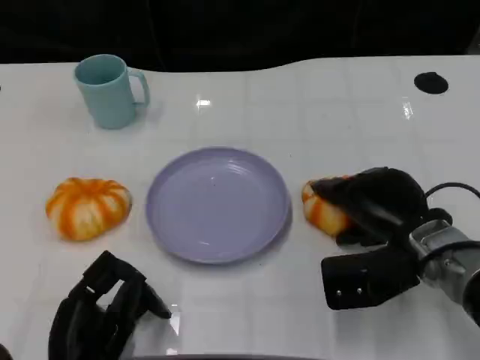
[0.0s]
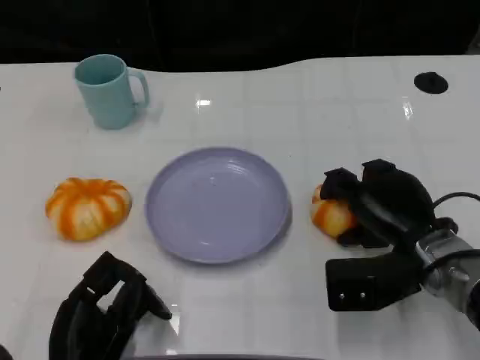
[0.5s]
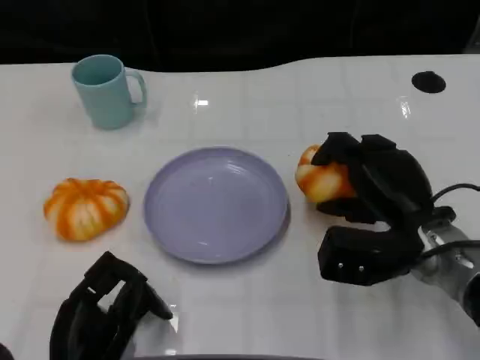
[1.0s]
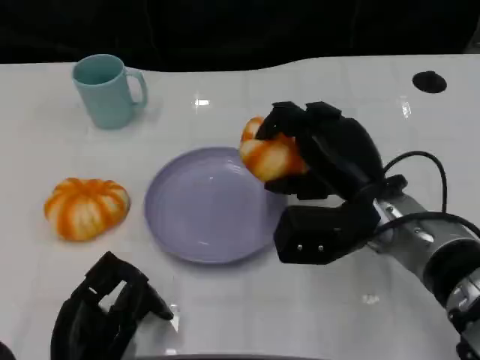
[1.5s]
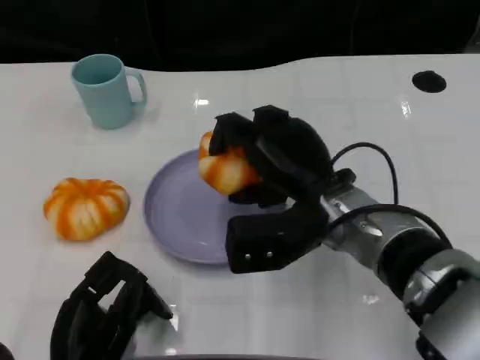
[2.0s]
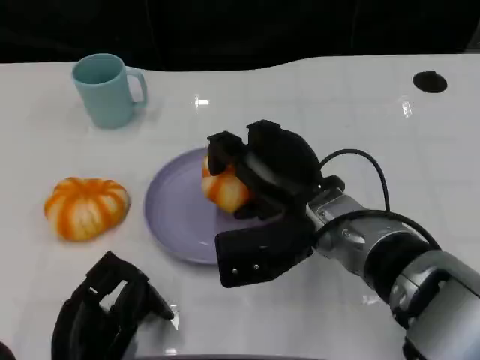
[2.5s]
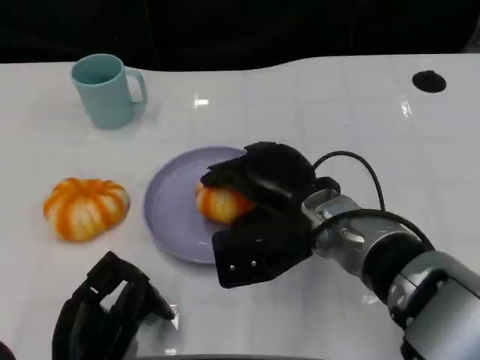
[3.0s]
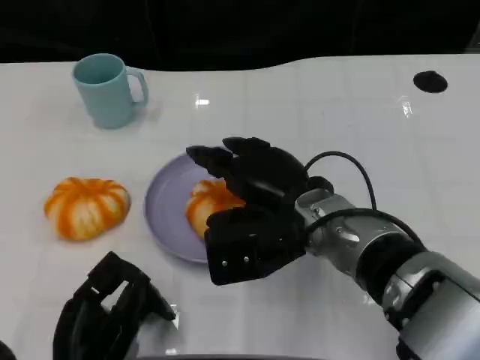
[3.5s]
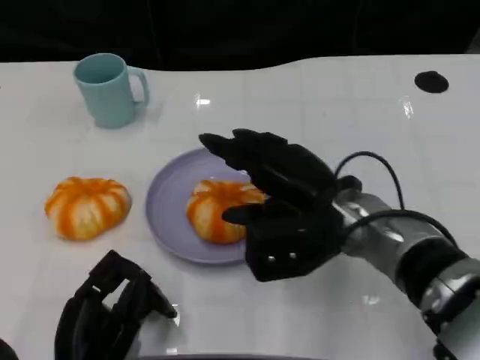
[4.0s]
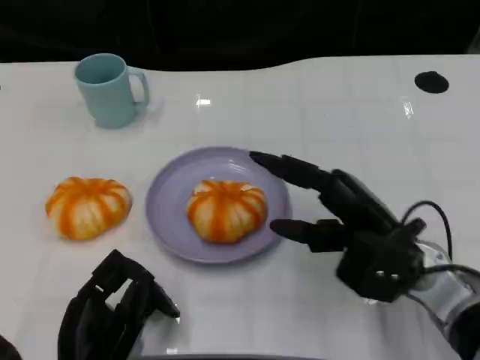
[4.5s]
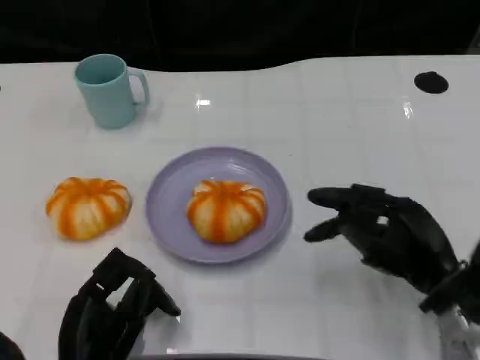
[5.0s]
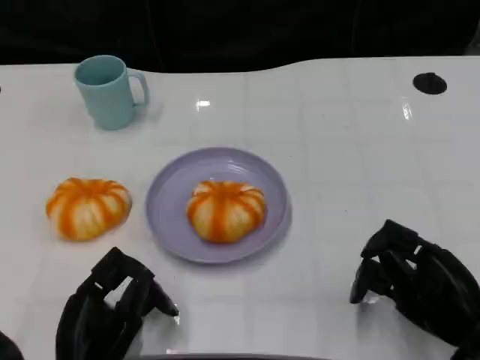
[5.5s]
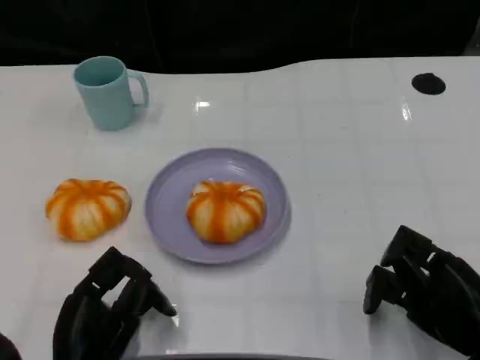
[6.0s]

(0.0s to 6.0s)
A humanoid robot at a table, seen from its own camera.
Task of the whole recording: Grasp the bread from the table and place it into the plate.
0.0s - 2.0s: The right hand shifts some 10 cm to the left.
2.0s - 4.0s: The hands make only small movements.
4.0s - 6.0s: The right hand shifts roughly 20 cm to the right, backward and downward.

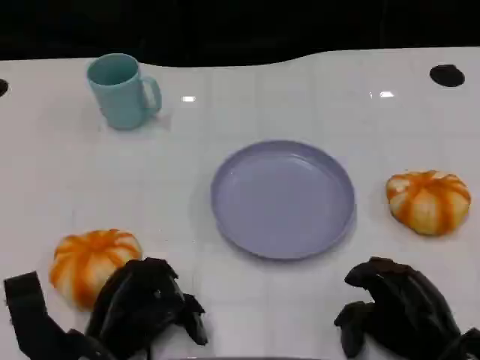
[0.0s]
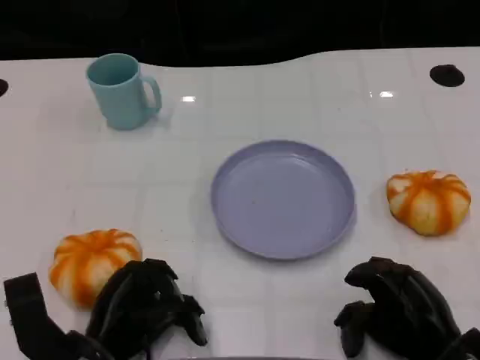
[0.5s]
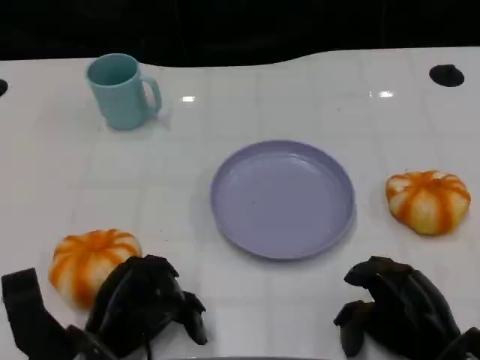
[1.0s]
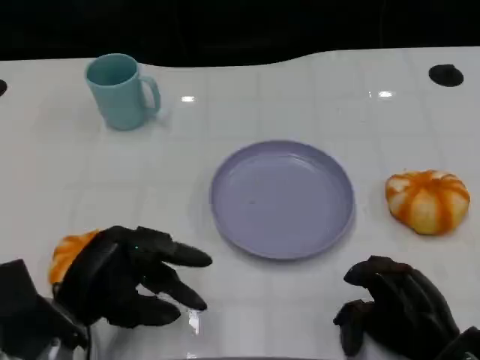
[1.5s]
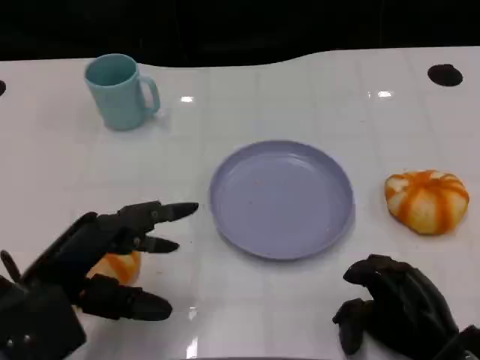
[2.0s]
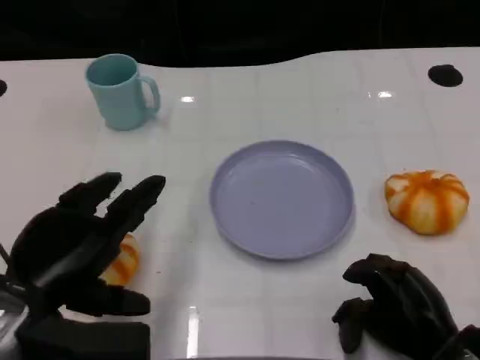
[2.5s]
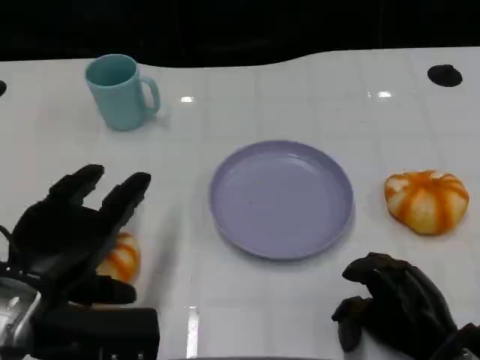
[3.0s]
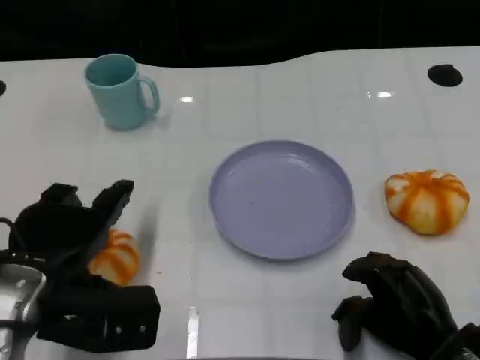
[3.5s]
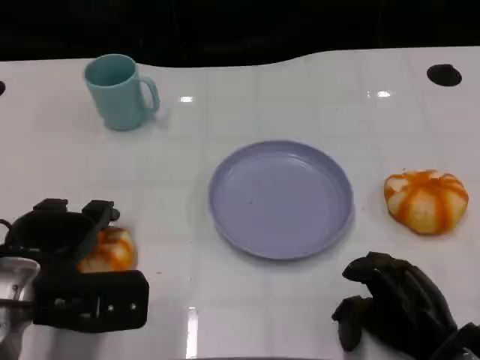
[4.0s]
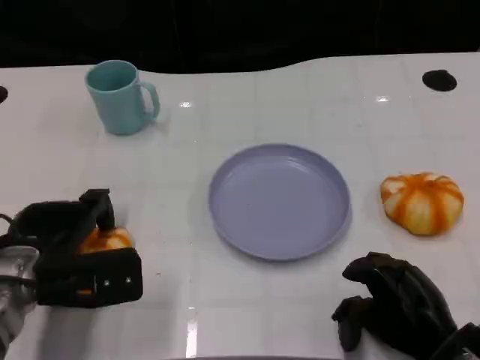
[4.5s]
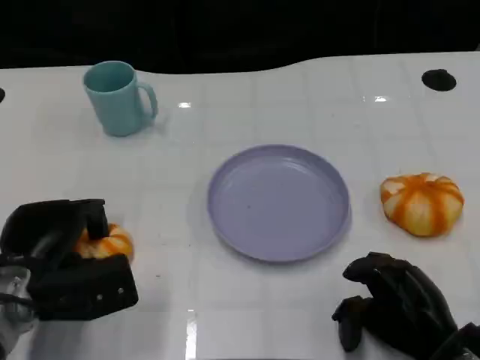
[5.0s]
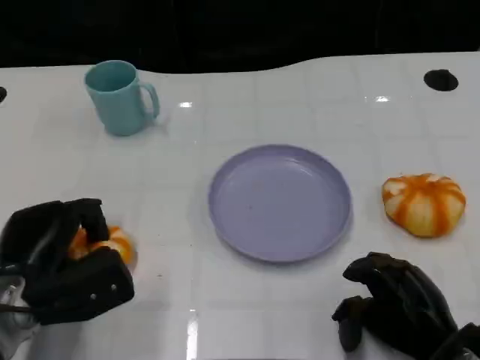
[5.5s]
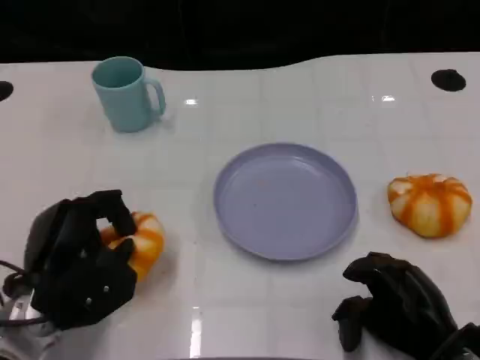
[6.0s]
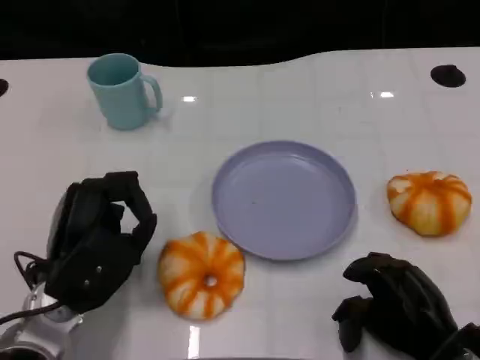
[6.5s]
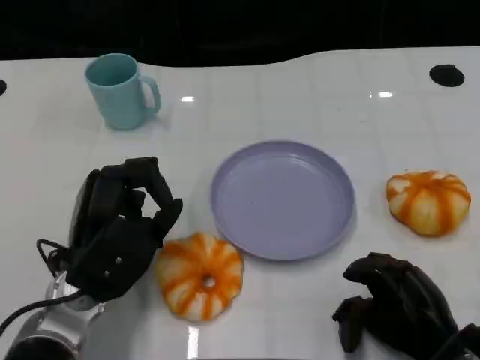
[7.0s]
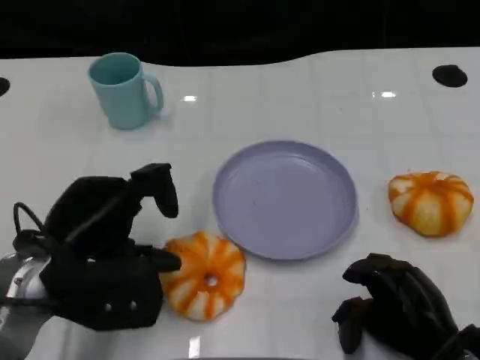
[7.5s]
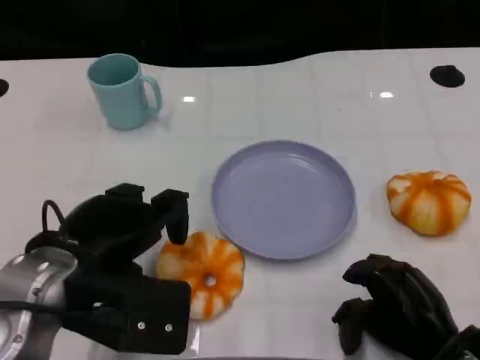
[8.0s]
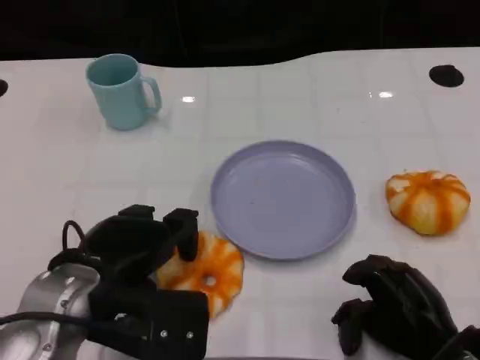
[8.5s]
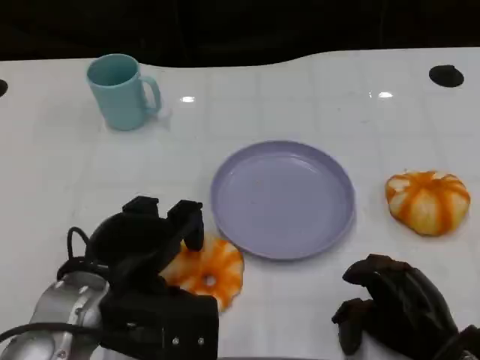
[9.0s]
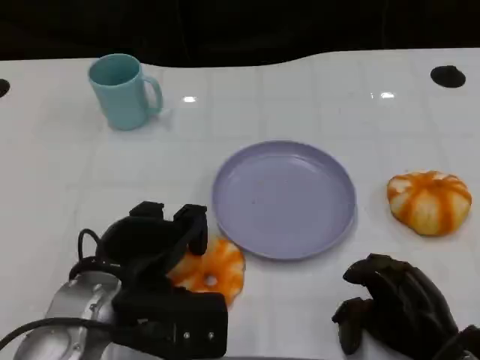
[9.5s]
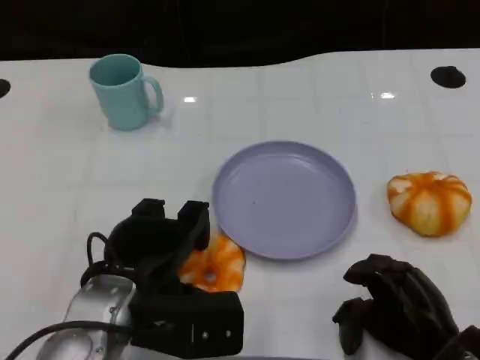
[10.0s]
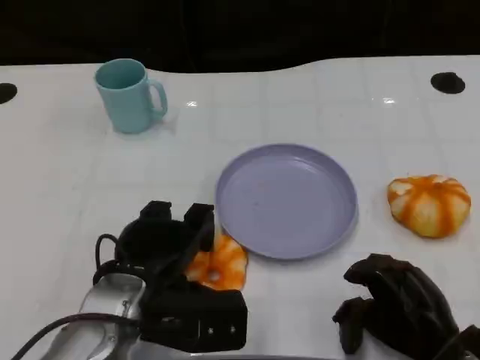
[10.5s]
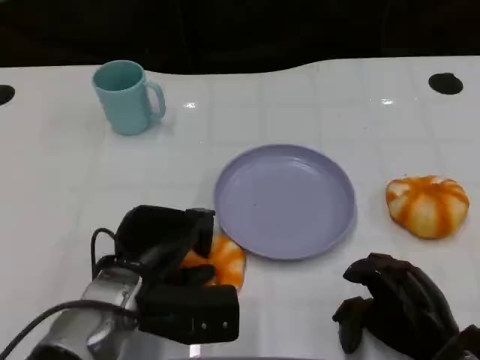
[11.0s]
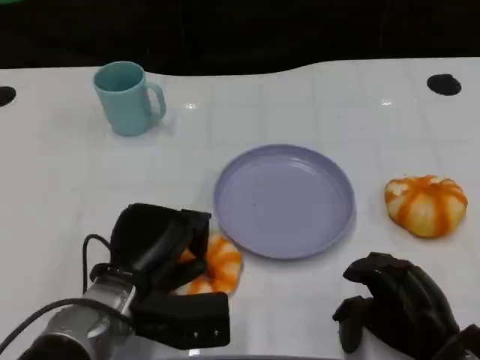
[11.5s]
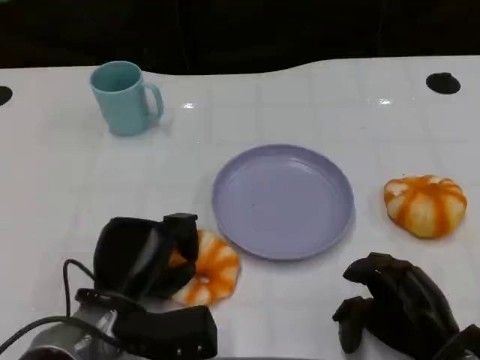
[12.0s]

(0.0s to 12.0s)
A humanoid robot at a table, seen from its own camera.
Task of the whole recording: Grasp the bread from the table and place it into the plate.
0.0s - 2.0s: The left hand moves upward and to the left, some 10 cm.
4.0s - 6.0s: The left hand changes place by approximately 5 cm.
6.0s - 8.0s: The left hand goes roughly 10 cm upward.
8.0s - 10.0s: The left hand goes some 5 cm downward.
10.0s - 12.0s: The left hand heads downward, covering about 5 cm.

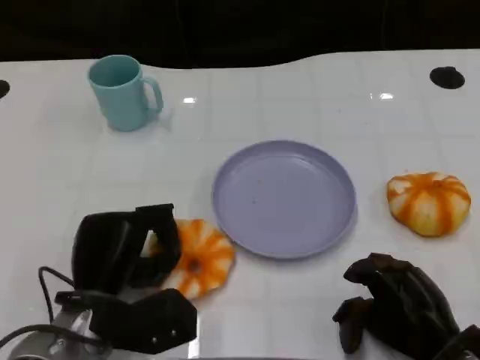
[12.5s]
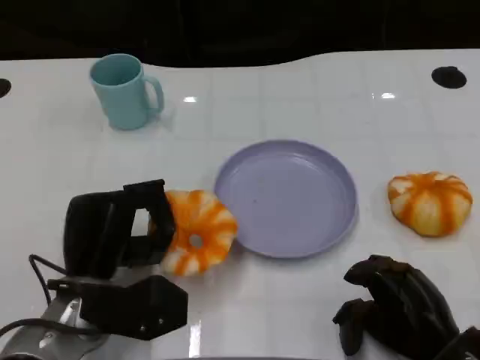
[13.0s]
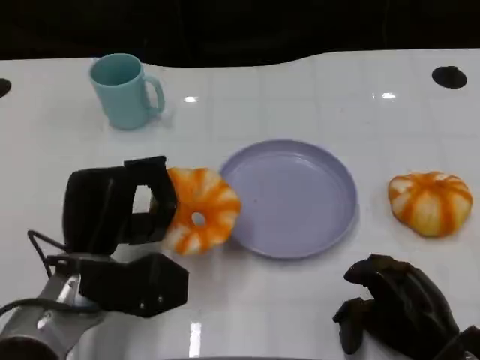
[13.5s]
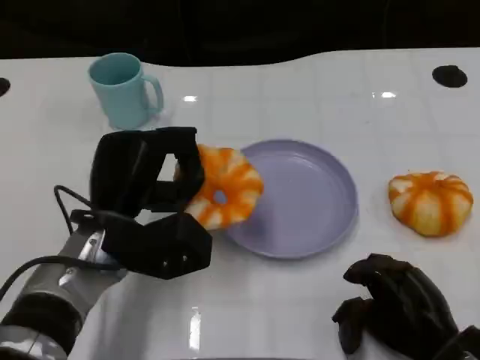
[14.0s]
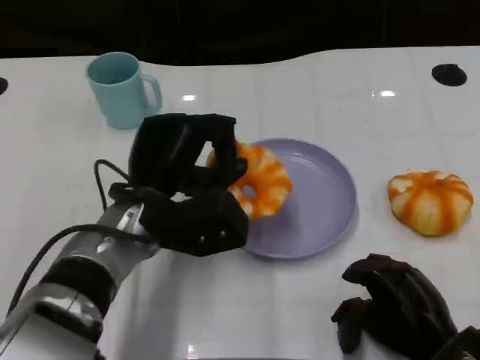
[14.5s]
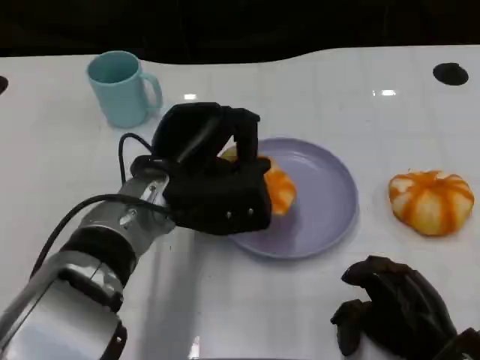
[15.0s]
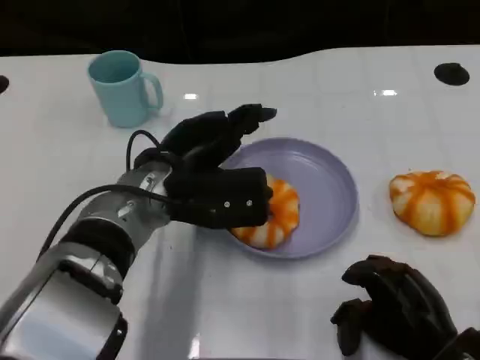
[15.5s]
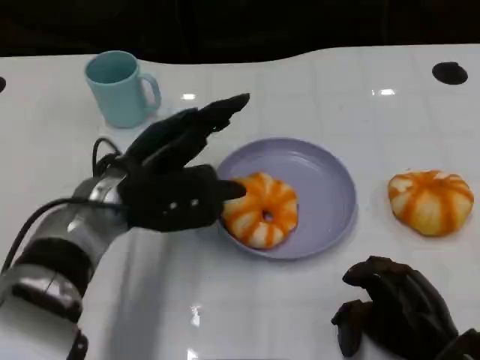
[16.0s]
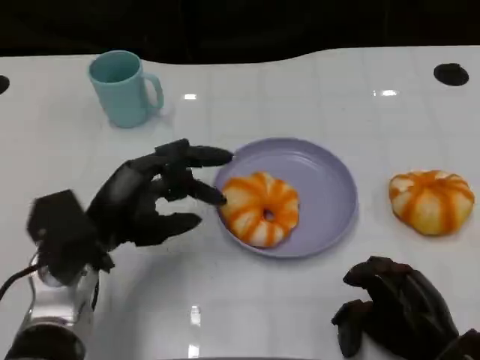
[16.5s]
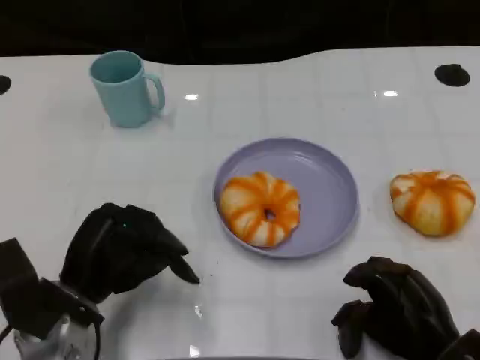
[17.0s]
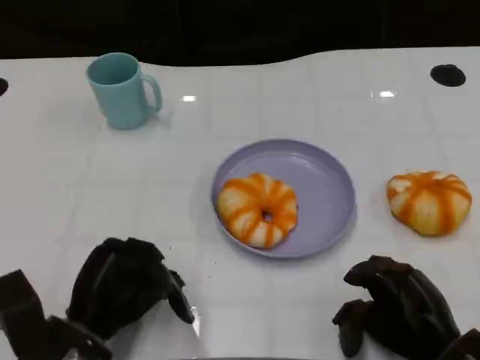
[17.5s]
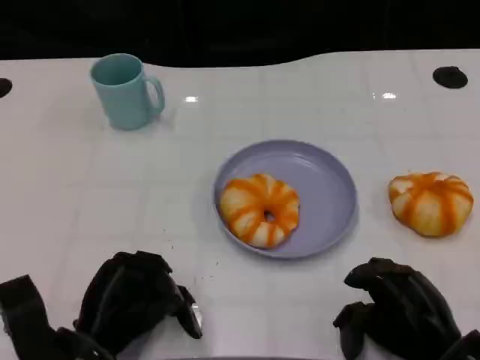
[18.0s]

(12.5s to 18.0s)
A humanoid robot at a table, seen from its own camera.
Task of the whole recording: Grasp the bread from the table and place it into the plate.
12.5s - 14.5s: The left hand moves upward, forward and to the right, about 10 cm.
16.0s - 18.0s: The left hand travels backward and downward by approximately 15 cm.

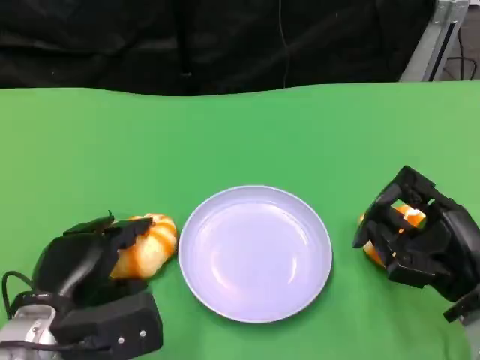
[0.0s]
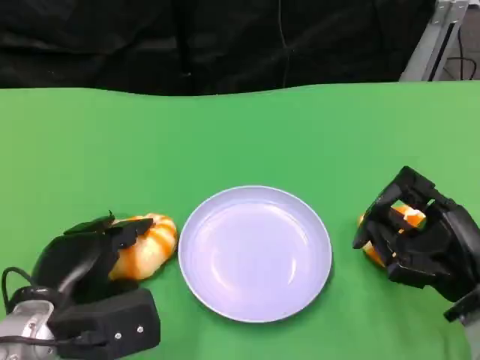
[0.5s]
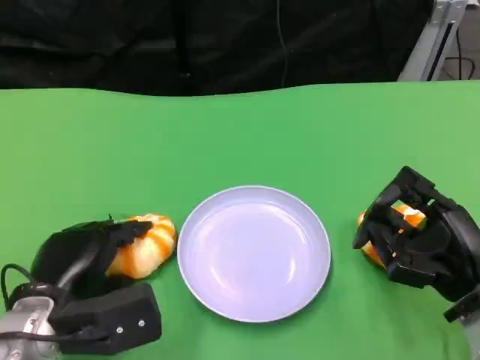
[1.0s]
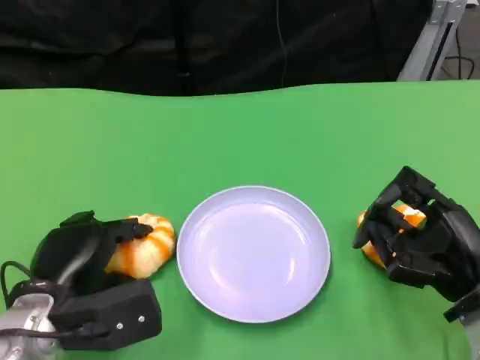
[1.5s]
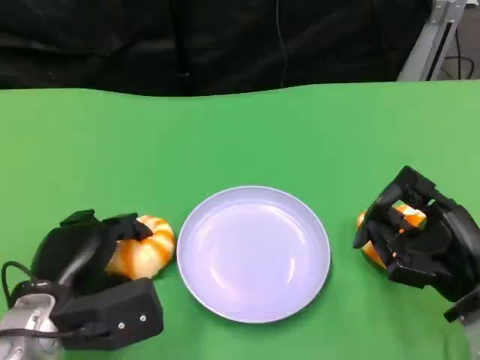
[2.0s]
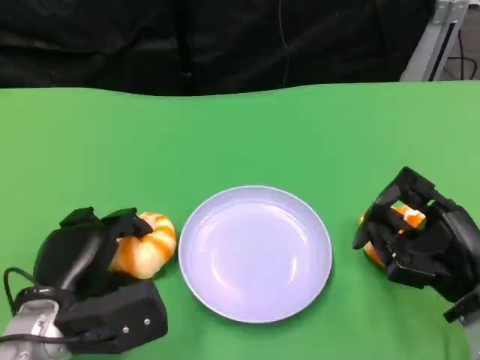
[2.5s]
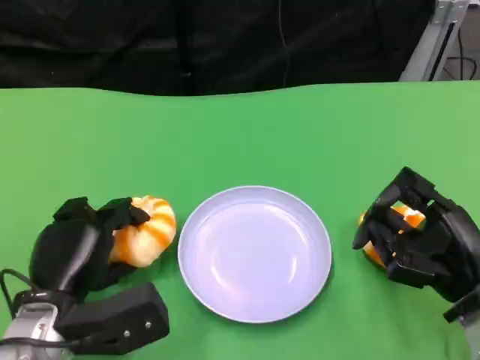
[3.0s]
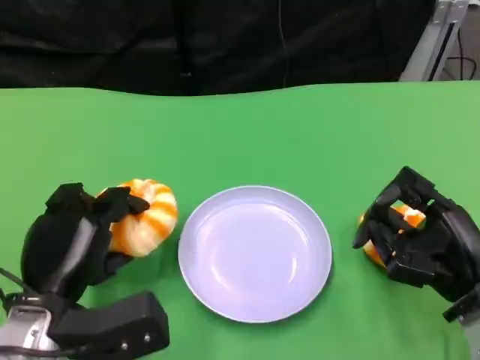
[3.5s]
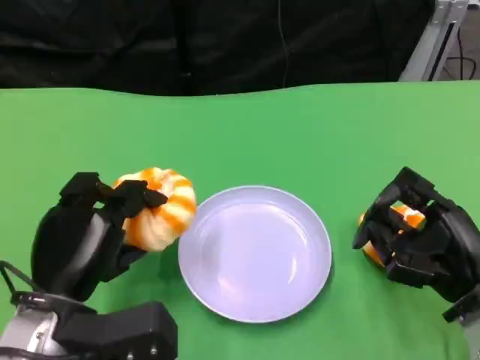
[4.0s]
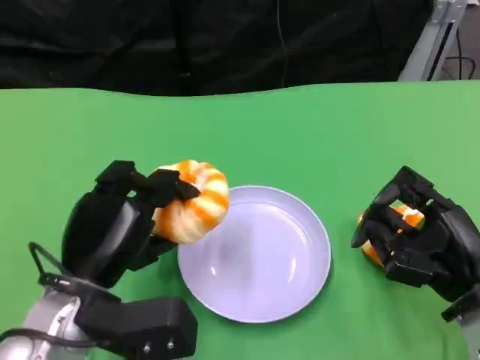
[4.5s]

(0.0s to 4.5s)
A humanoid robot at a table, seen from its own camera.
Task of the whole recording: Grasp the bread from the table and place it into the plate.
0.0s - 2.0s: Both hands stay put.
2.0s - 4.5s: The left hand moves roughly 5 cm.
